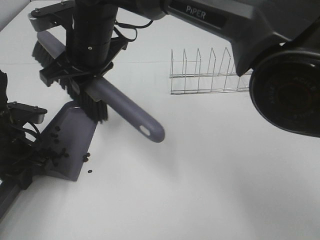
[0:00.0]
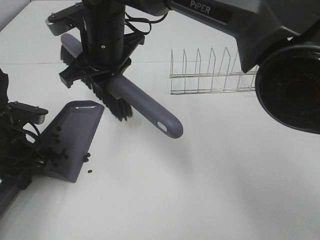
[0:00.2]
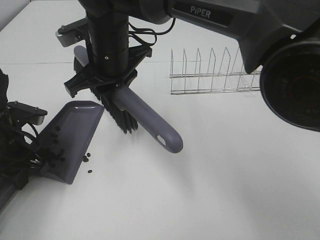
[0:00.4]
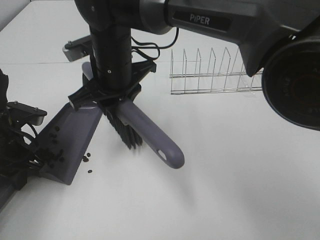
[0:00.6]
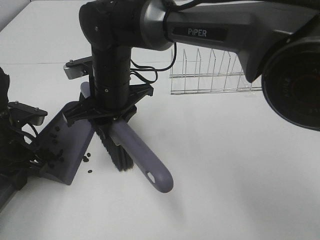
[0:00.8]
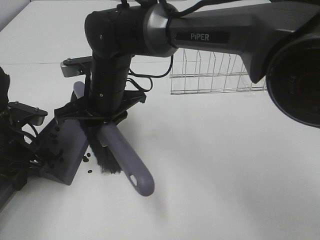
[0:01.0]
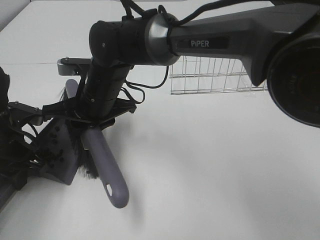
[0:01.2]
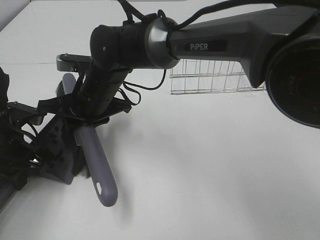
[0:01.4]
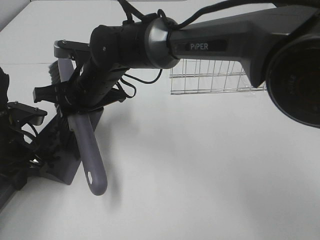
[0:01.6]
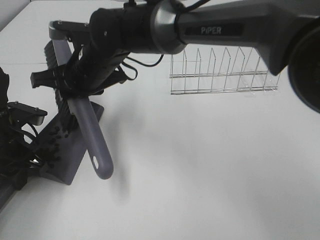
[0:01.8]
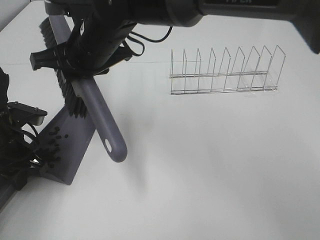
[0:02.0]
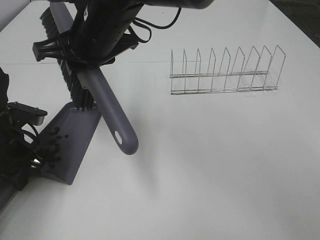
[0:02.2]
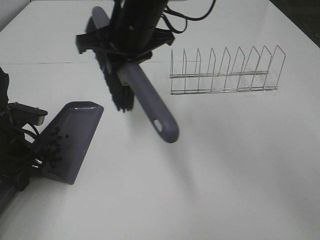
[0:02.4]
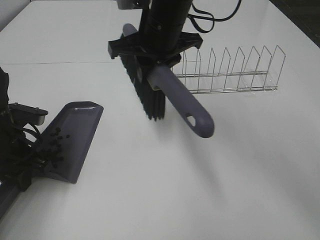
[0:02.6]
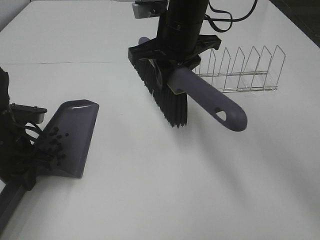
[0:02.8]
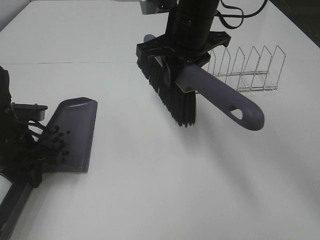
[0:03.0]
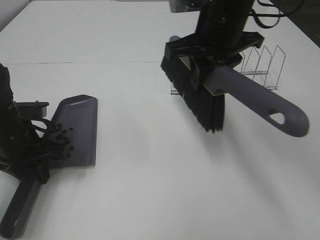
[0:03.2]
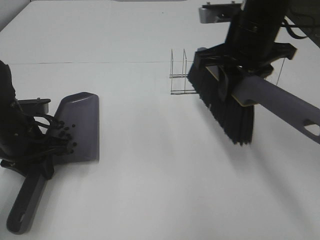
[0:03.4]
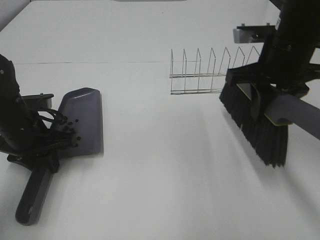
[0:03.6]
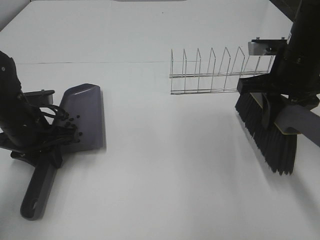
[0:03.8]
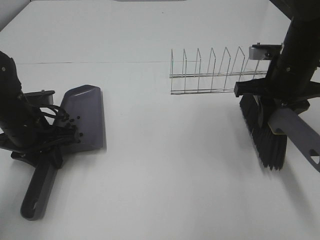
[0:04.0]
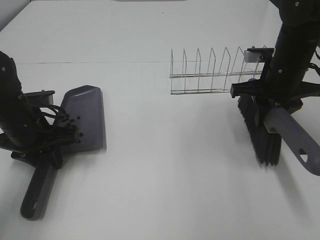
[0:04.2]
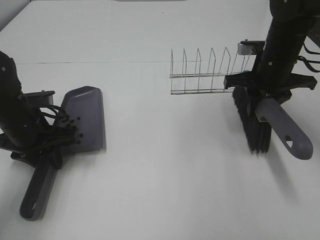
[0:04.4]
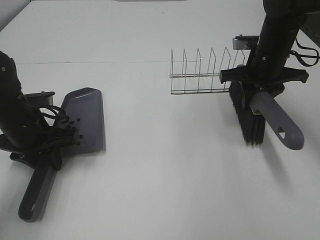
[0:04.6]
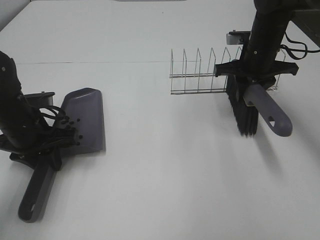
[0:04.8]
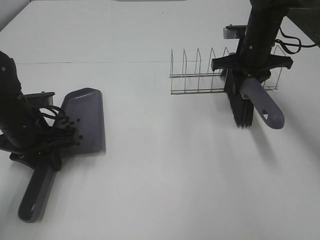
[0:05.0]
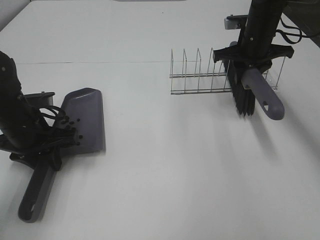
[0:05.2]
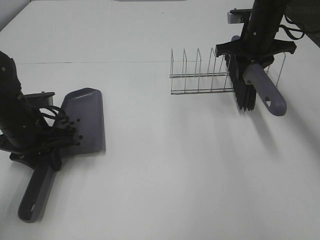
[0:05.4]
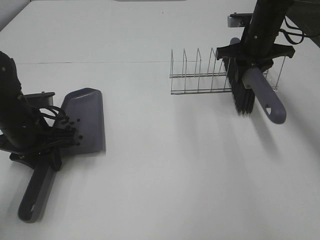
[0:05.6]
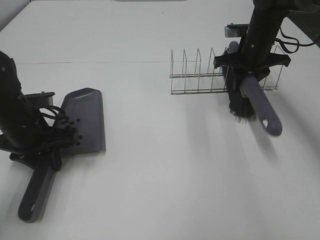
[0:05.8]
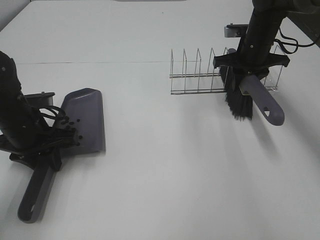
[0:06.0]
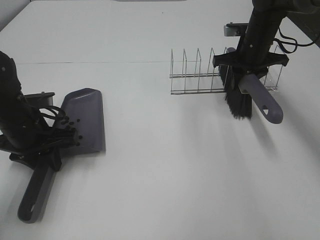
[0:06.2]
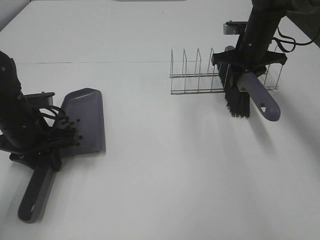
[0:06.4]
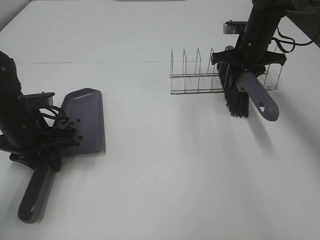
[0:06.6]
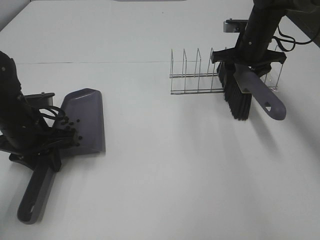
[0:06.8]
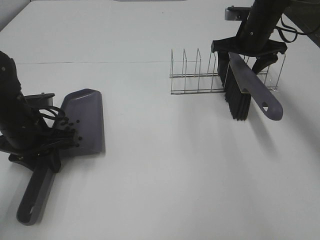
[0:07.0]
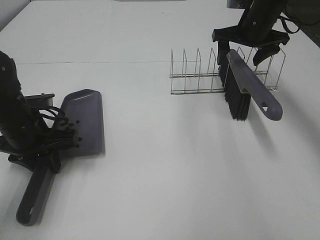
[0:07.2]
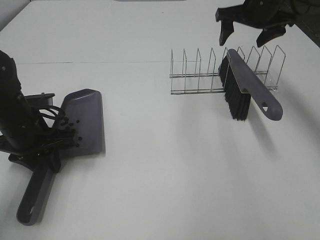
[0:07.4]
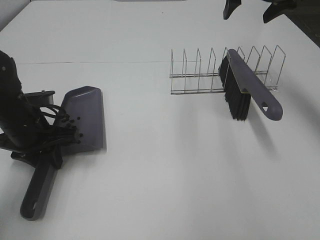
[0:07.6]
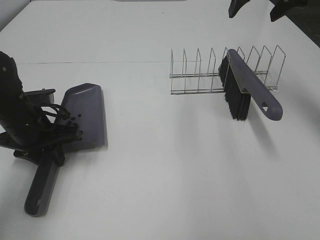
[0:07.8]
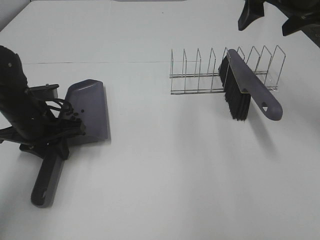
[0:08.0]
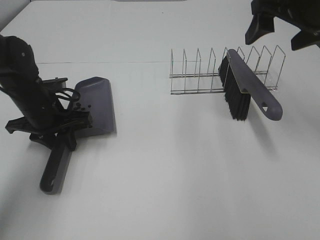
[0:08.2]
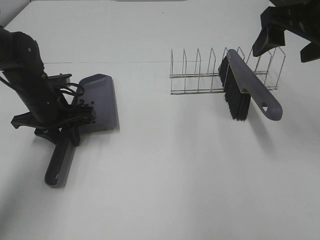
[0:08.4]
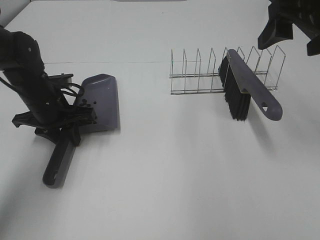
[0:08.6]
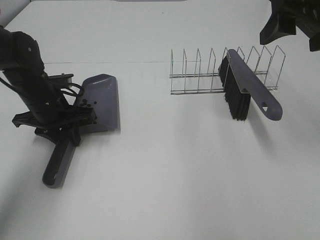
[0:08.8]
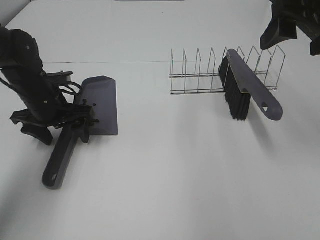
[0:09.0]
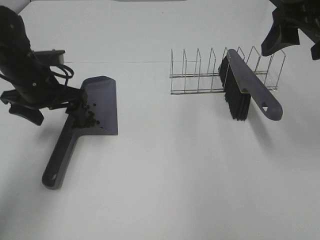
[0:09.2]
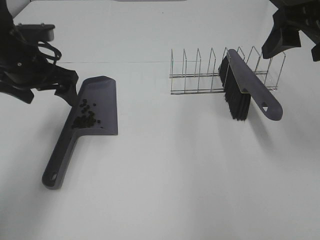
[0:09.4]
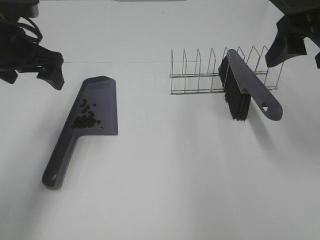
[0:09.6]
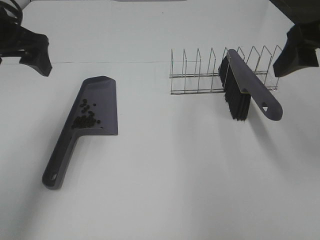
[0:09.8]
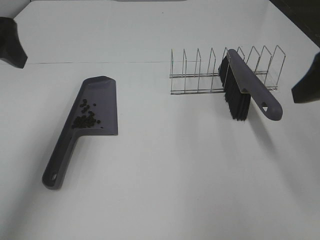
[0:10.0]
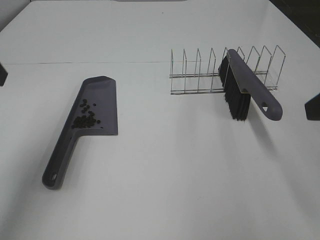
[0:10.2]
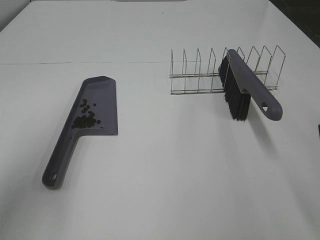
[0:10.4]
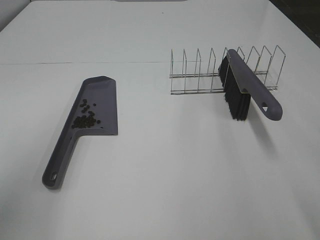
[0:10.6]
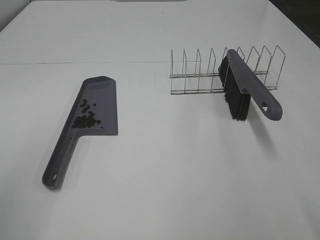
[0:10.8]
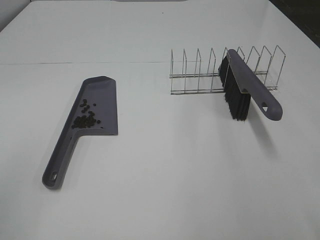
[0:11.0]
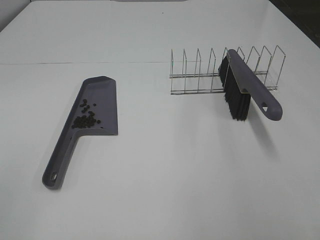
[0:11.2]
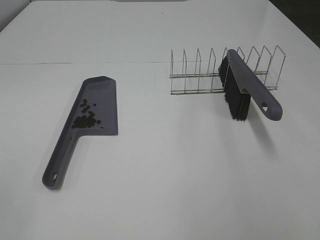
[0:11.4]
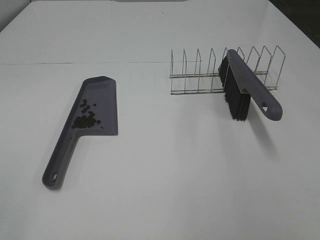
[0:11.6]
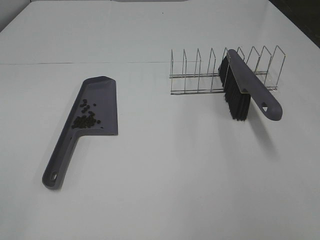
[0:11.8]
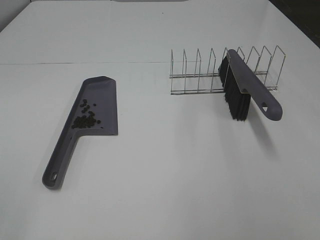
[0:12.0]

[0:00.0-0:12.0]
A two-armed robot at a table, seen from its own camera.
Task of the whole recording: Sweep Coffee Bean.
Step, 2.0 to 6.8 s: Right hand:place the broom on the rack.
Step, 7.0 to 9.0 s: Left hand:place the dustpan on the table.
0.0 to 1.6 s: The right gripper travels downward by approximately 10 cm.
1.6 to 3.0 s: The right gripper travels to the right and upward by roughly 20 cm.
3.0 to 4.4 s: The right gripper moves to the right and downward, approximately 20 cm.
4.4 to 6.0 s: The right gripper is displaced forward by approximately 10 cm.
6.0 to 7.6 s: The right gripper moves upward, approximately 15 cm, and opens.
7.6 to 9.0 s: The left gripper is displaced forward by approximately 5 cm, and opens. Meanwhile the right gripper is displaced backward by about 20 cm.
9.0 to 10.4 s: The right gripper goes roughly 15 cm backward. The left gripper travels upward and backward by roughly 30 cm.
10.4 to 12.0 s: The left gripper is displaced backward by approximately 20 cm.

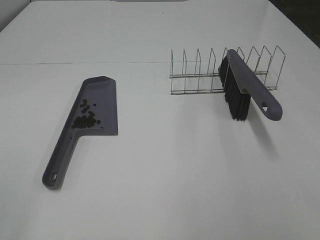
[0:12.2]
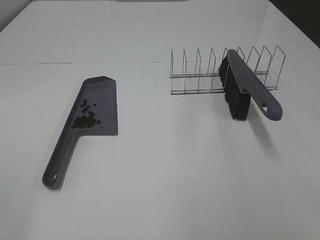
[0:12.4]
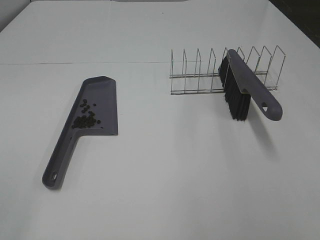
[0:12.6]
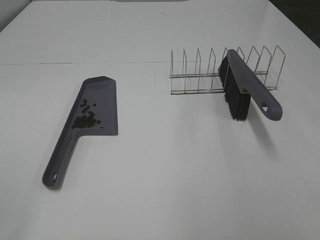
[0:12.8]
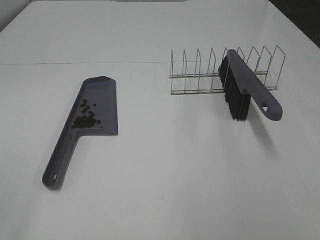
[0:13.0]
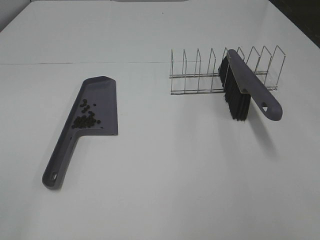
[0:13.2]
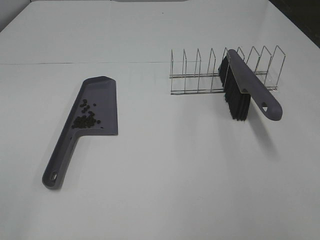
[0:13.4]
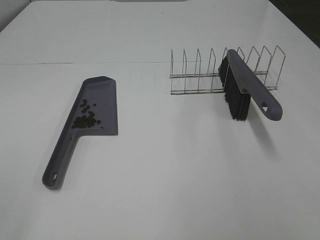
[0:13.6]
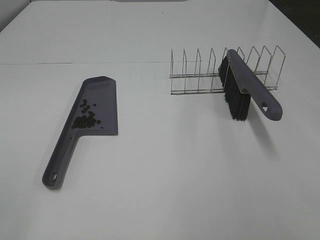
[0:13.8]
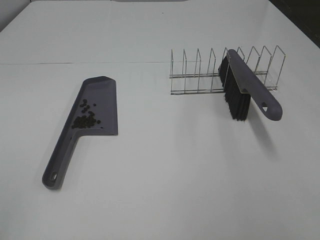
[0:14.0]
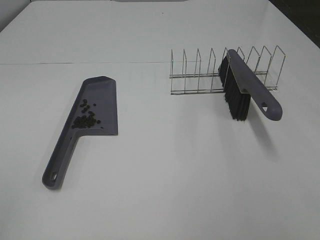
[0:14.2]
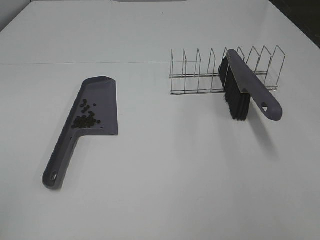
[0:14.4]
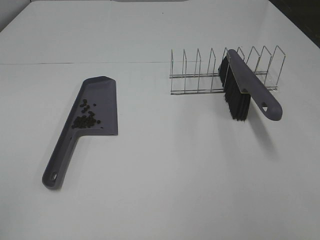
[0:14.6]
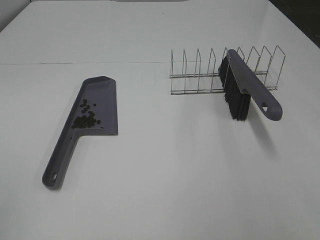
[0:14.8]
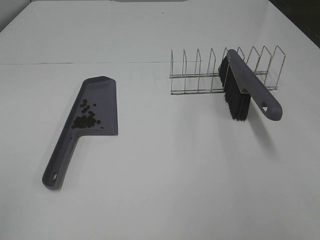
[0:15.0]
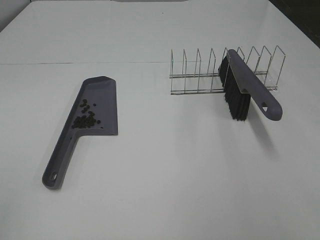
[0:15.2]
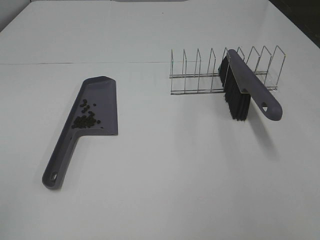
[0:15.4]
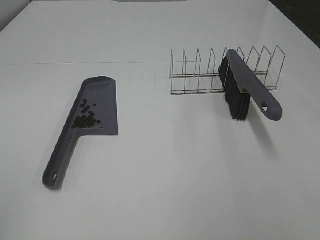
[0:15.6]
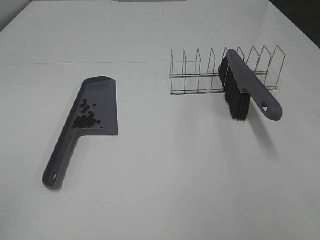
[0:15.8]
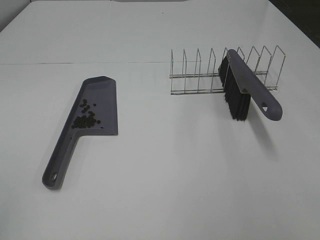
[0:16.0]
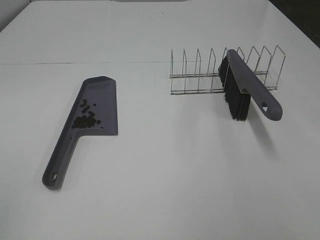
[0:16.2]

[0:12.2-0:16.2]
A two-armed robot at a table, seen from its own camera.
Task of the whole recording: Sweep Coffee Bean.
14.8 to 16.2 s: Both grippers stay put.

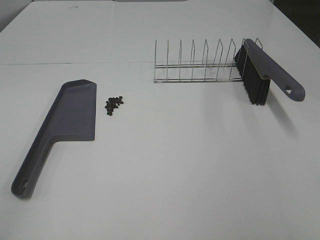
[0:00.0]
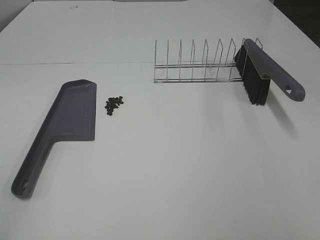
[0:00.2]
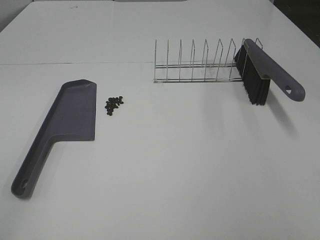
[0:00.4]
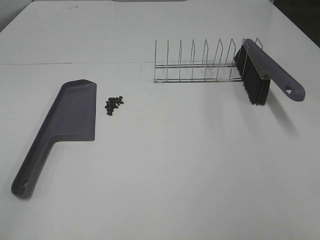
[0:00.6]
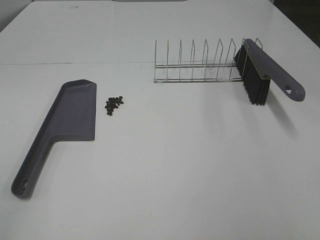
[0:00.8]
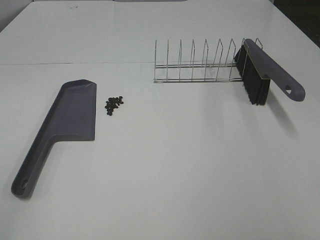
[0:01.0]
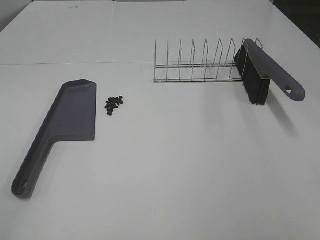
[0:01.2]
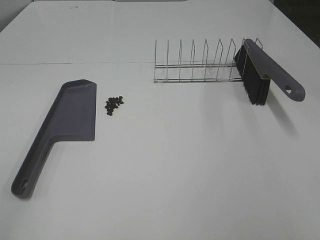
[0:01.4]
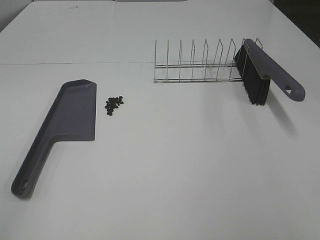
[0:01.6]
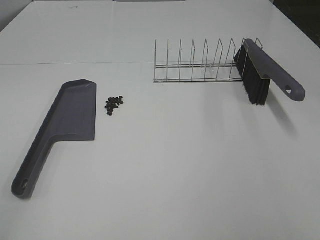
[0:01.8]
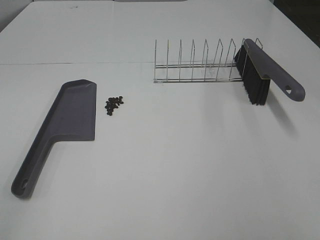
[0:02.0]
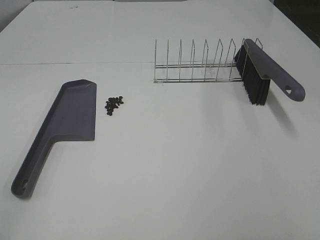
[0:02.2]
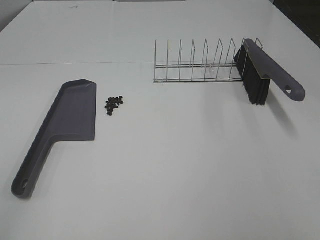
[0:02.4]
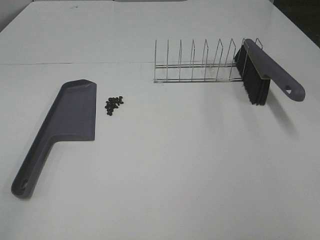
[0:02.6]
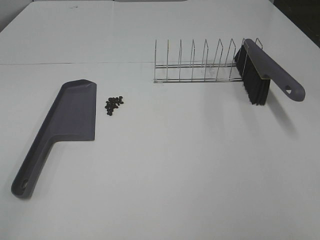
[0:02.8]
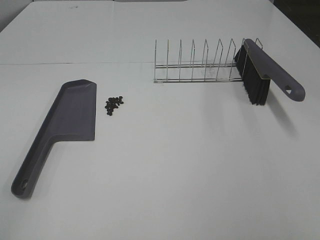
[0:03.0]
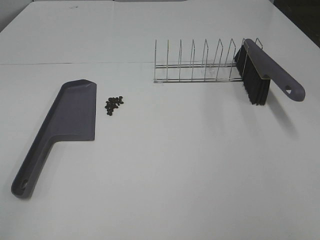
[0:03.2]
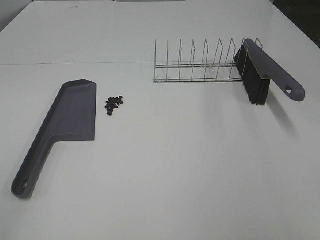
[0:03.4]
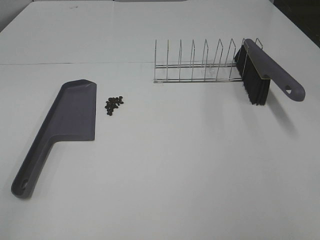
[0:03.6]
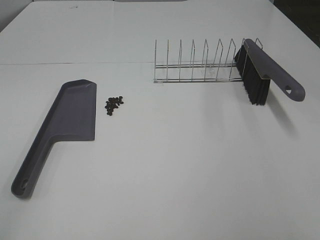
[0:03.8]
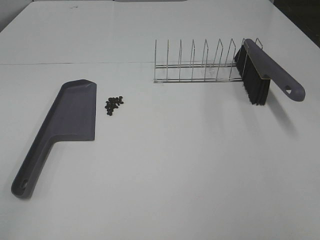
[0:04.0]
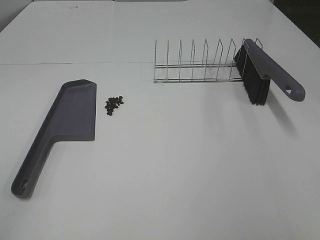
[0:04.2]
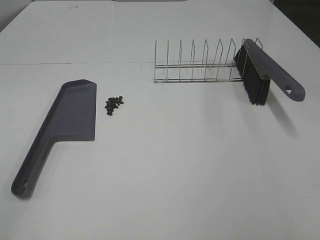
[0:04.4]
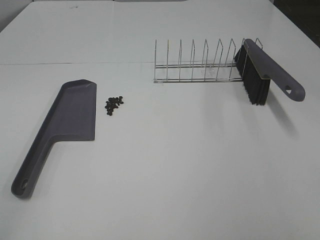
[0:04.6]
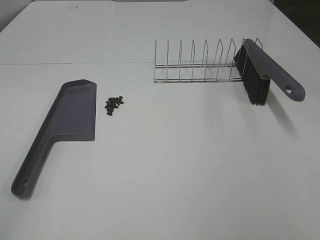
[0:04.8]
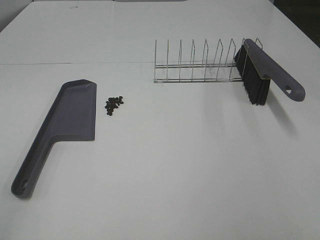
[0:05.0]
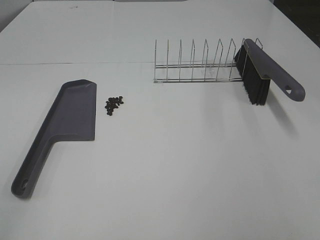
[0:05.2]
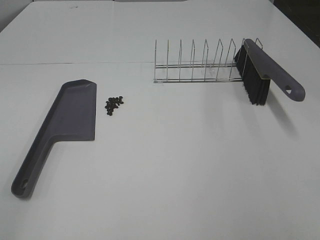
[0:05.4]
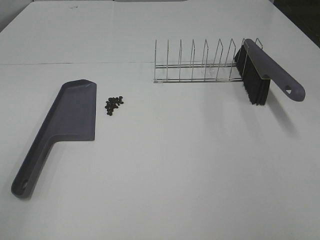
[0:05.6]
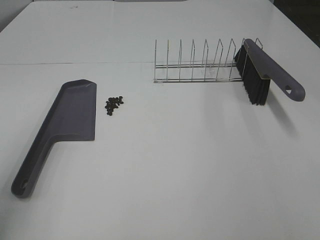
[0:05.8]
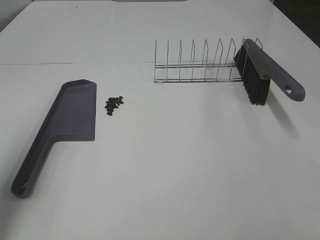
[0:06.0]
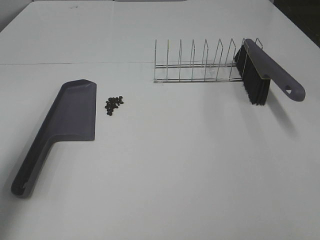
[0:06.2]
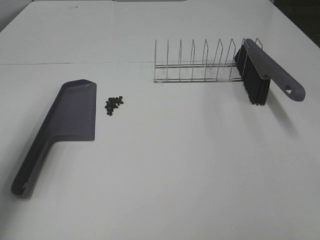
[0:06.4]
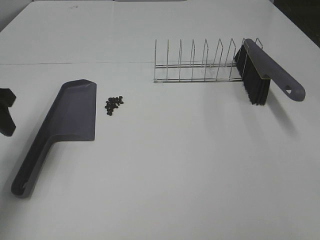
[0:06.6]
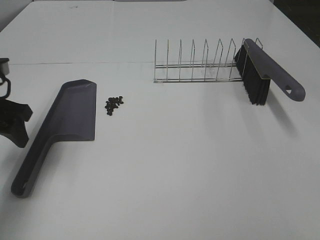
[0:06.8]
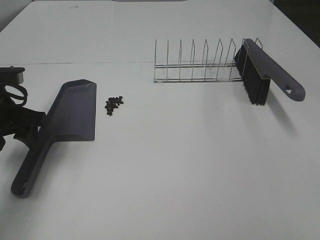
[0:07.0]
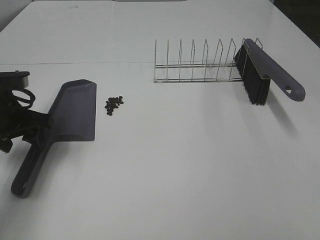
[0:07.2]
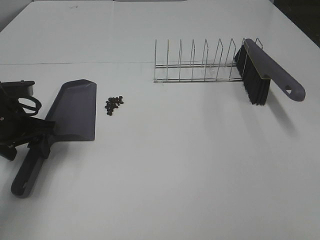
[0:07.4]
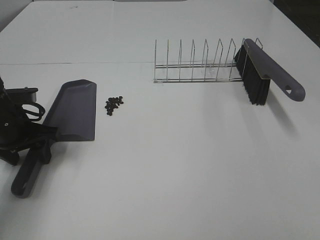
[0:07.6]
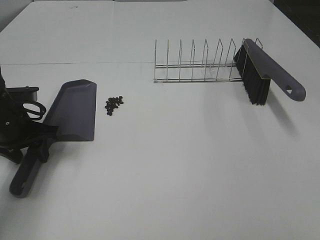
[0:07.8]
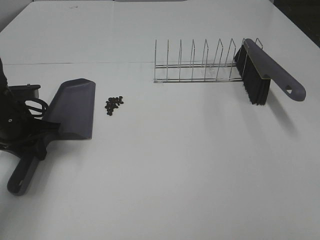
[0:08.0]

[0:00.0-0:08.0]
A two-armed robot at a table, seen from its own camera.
Task of the whole recording: Sweep Coffee Bean.
Step, 0.0 to 7.8 s: Left hand: grab the dustpan.
0.0 to 4.8 s: Both grippers stay put.
4.8 to 6.4 s: The left gripper moves forward, about 30 cm.
6.4 to 8.0 s: The left gripper goes approximately 15 cm downward, and closes up.
